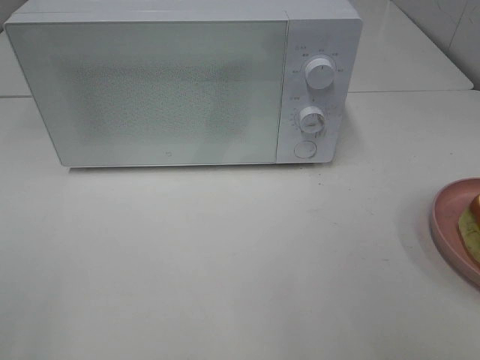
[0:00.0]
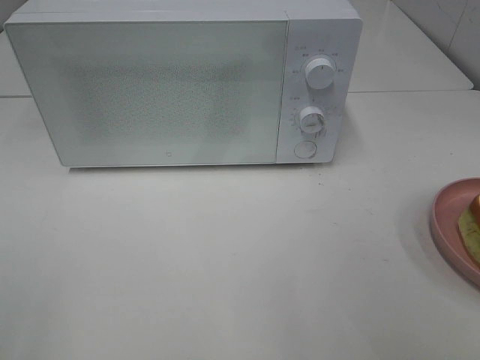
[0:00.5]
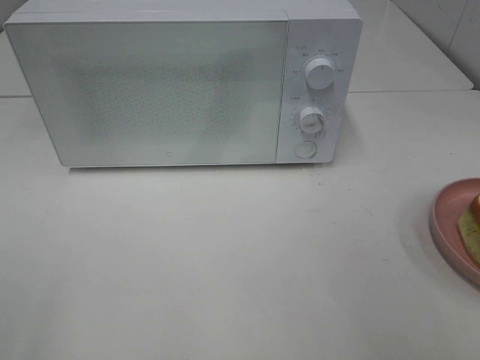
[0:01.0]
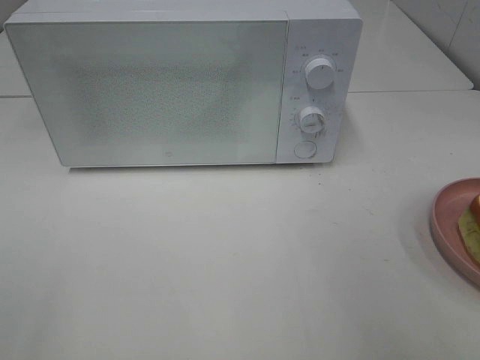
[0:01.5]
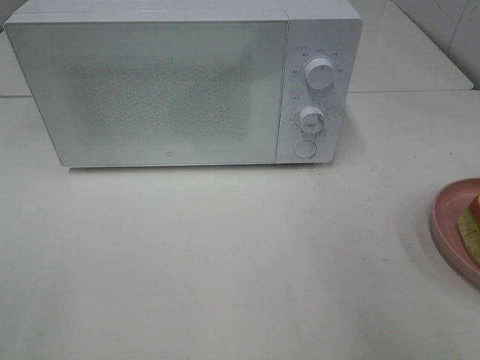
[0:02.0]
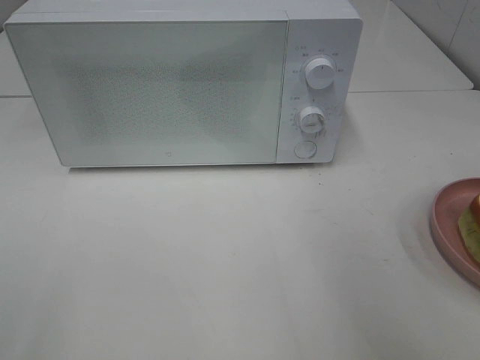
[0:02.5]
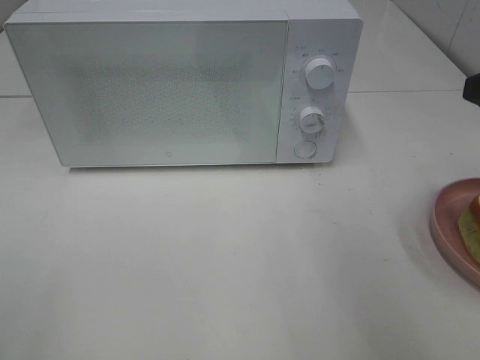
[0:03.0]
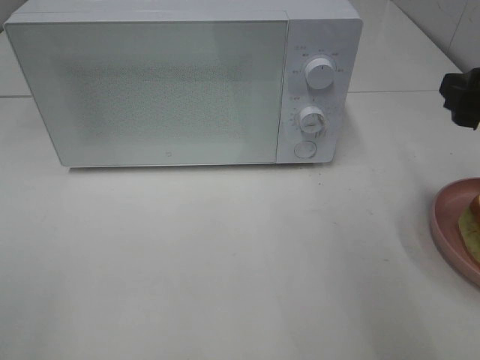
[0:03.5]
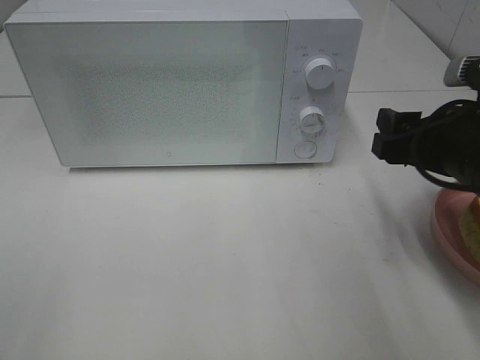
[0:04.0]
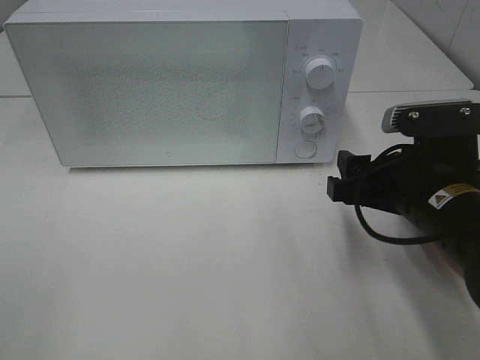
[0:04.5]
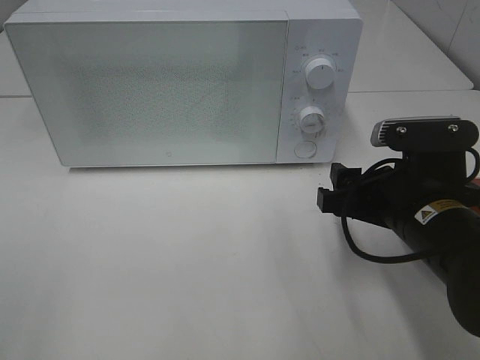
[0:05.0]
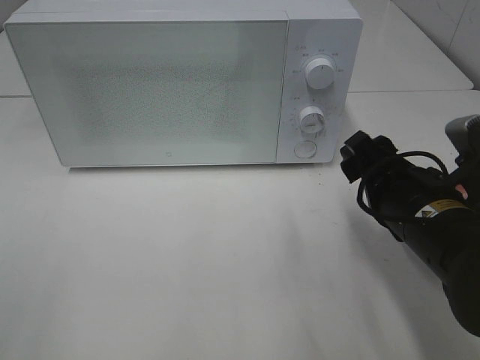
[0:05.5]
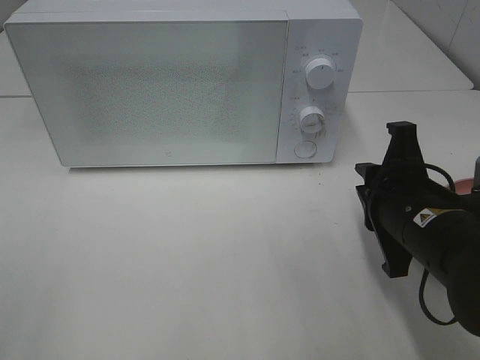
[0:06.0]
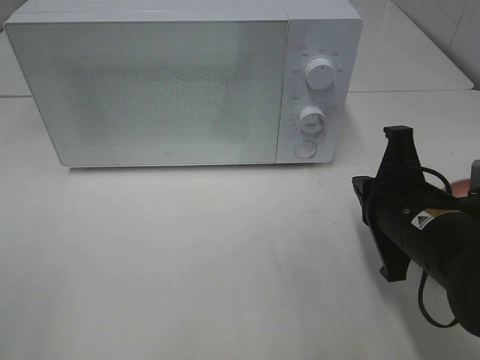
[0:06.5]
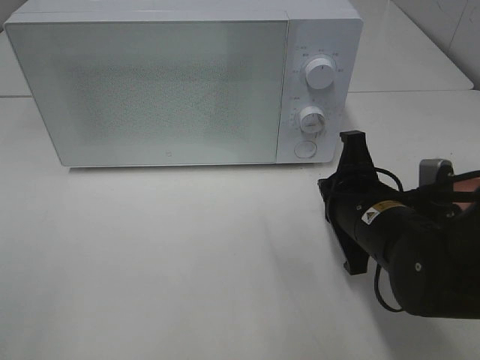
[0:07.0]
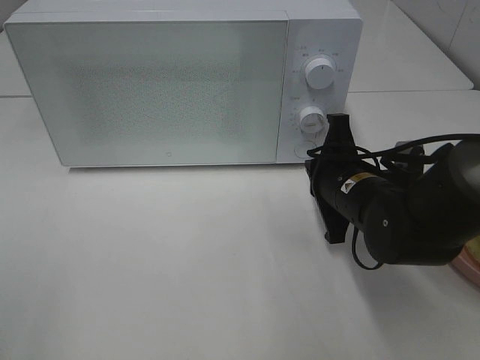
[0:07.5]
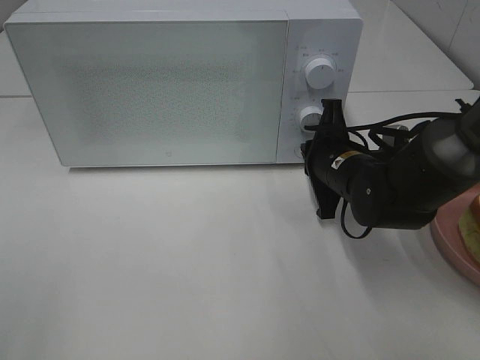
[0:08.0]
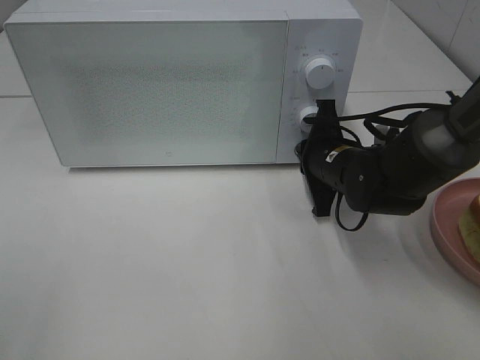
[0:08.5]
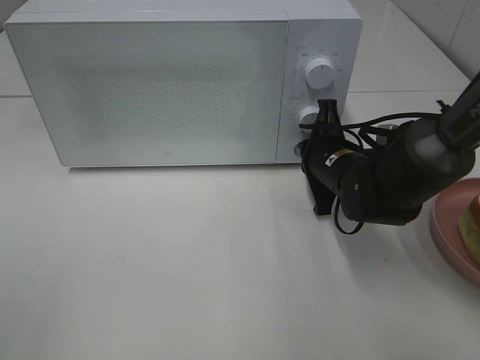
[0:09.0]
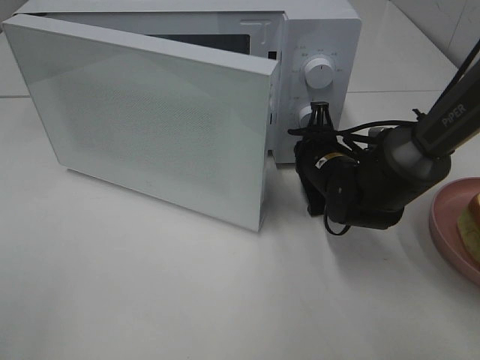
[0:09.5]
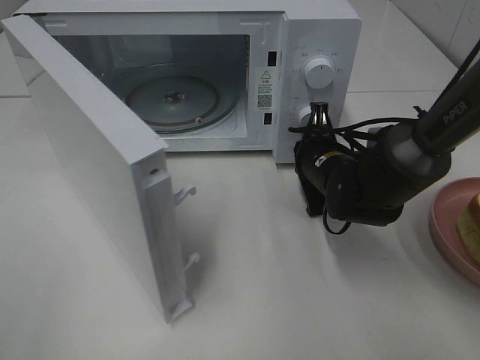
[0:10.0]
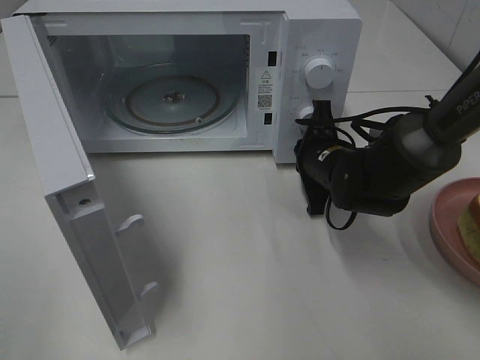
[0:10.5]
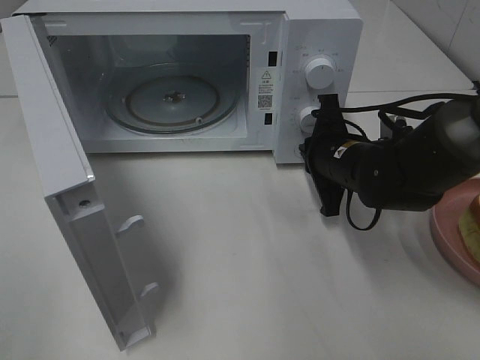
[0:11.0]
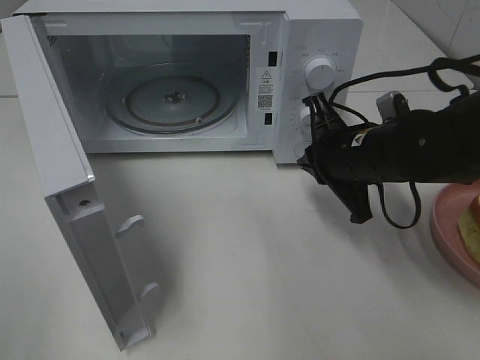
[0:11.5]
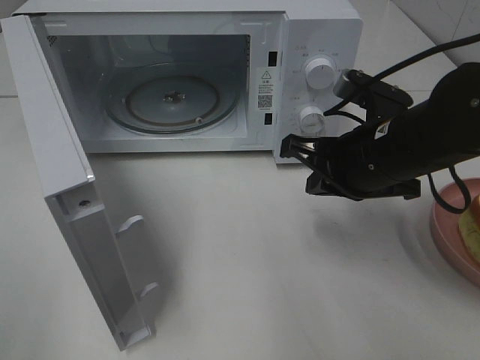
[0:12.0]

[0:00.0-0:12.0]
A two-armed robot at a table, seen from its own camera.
Task of the whole recording: Heat Sandwich.
Step, 0.0 to 11.0 s: Right hand: press the switch.
2.0 to 4.0 s: The right gripper travels downward, forward and to the left by about 15 cm.
4.0 to 6.0 s: The right gripper goes about 5 cm downward, and closes up.
6.0 to 8.0 s: The right gripper travels forward by roughly 10 cm.
10.0 to 12.0 s: The right gripper moves upward and backward, about 15 cm.

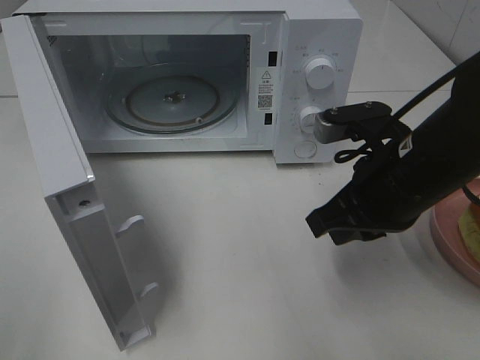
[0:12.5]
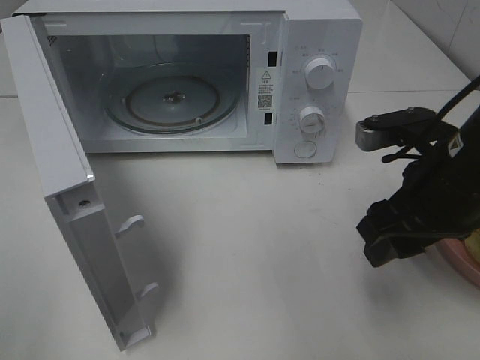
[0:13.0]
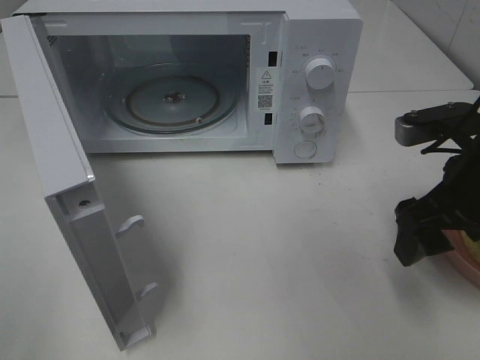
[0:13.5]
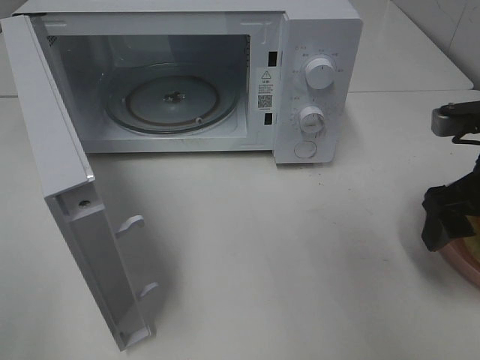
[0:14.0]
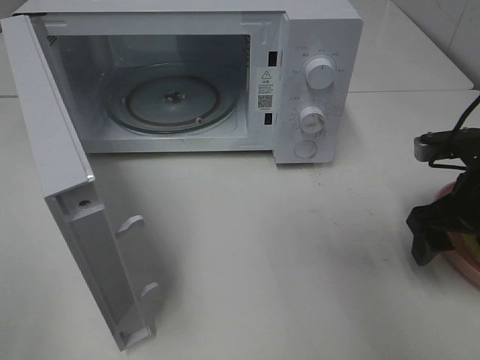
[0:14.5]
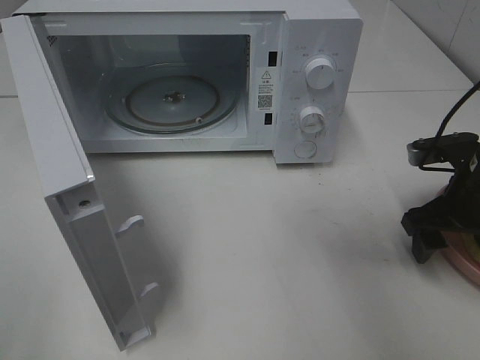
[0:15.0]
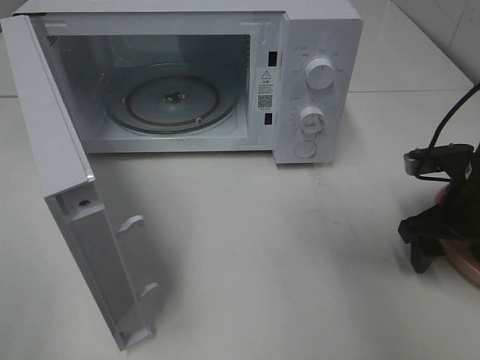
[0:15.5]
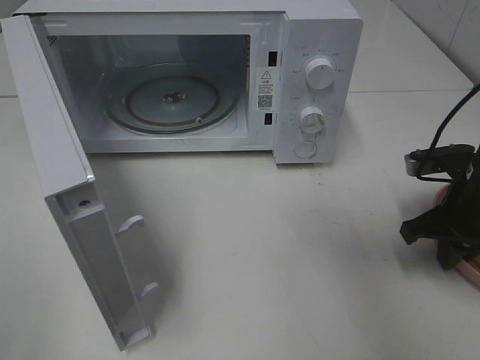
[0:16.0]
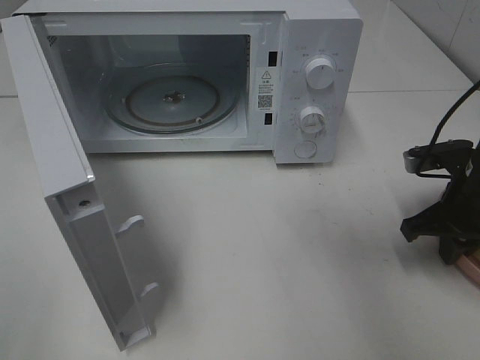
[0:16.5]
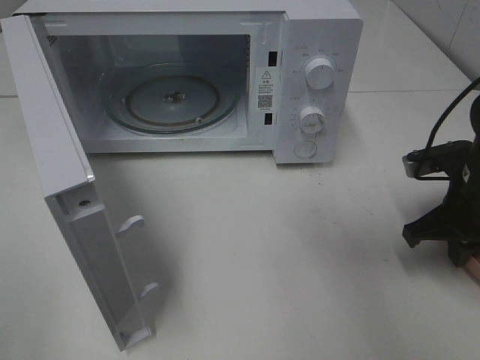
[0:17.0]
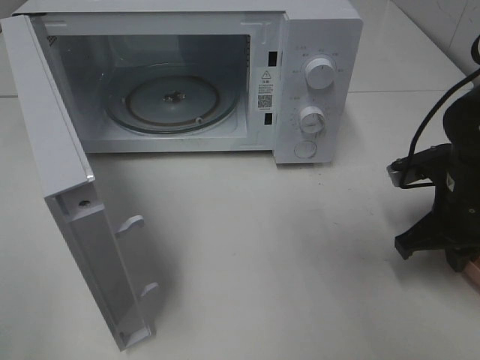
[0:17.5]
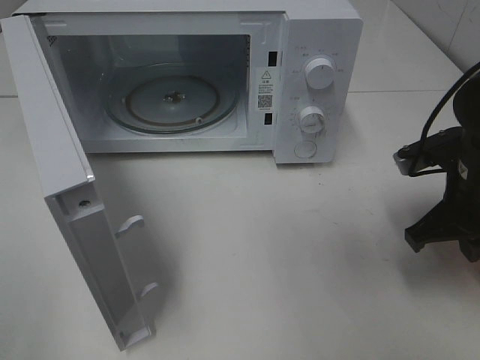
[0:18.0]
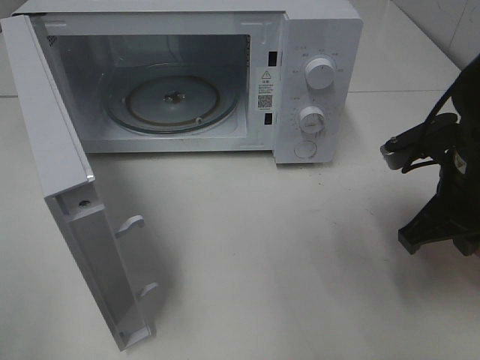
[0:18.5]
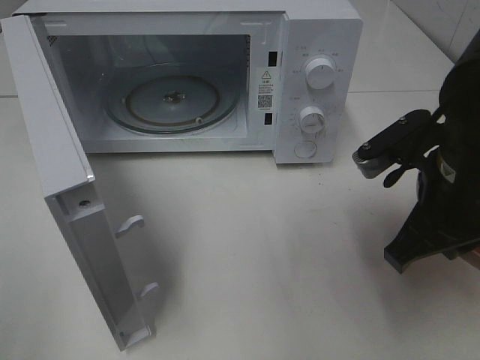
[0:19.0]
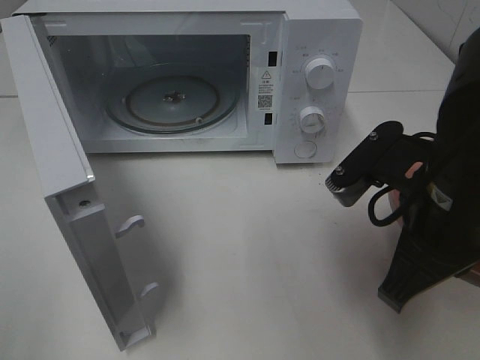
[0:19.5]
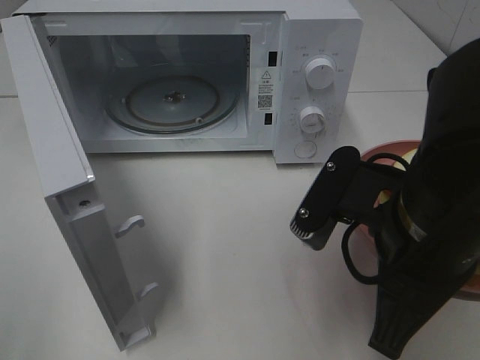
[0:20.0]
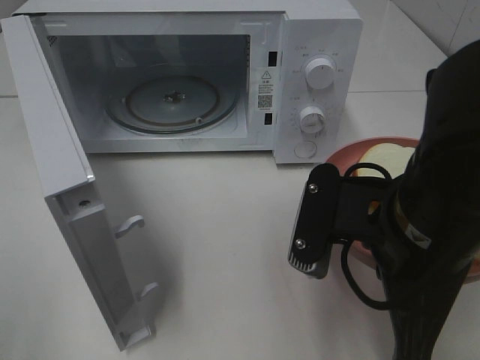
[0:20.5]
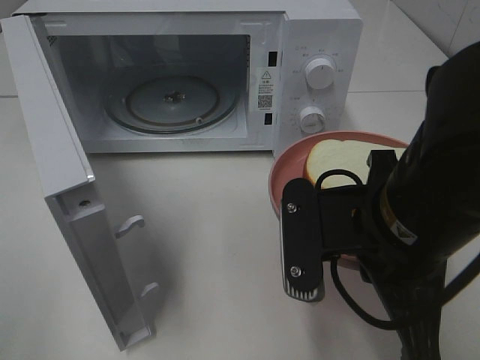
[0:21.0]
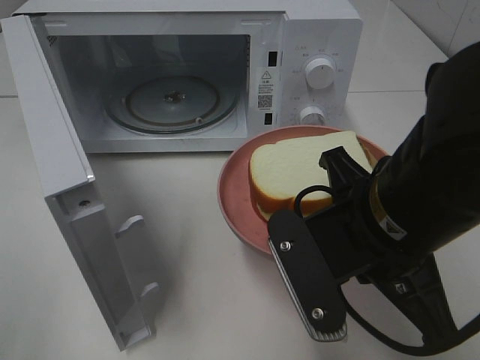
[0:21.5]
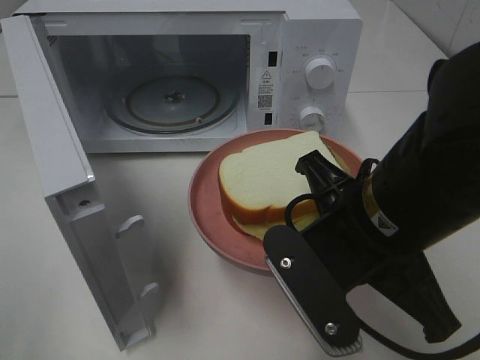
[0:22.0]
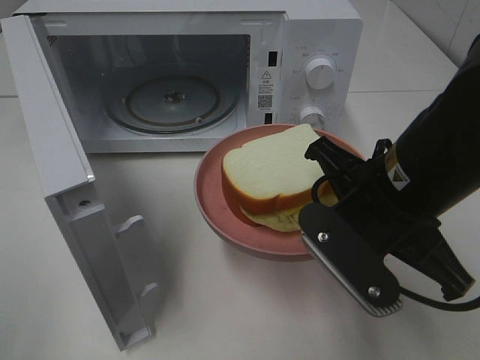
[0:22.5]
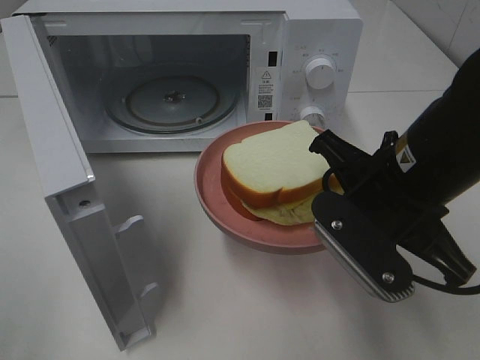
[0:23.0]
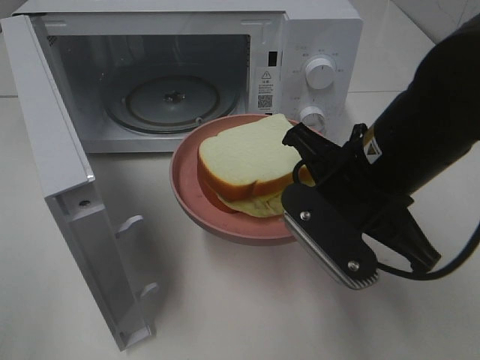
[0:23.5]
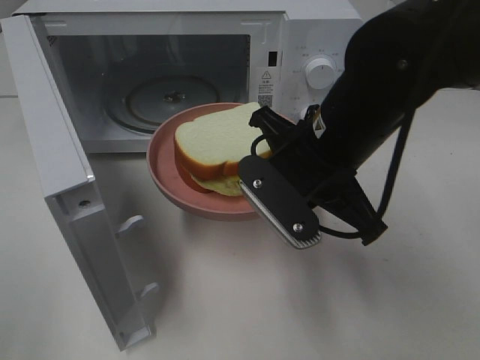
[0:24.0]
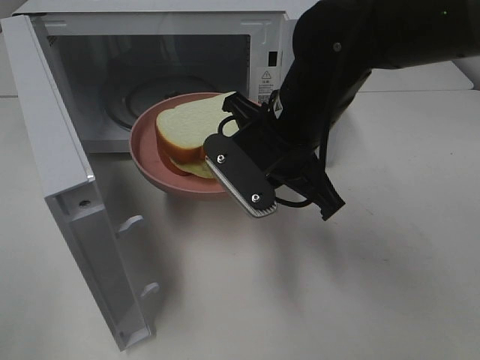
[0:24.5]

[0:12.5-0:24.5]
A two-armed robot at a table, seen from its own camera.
Task of the whole recording: Heat Sandwich.
Step, 12.5 to 16.0 s: Right hand: grab the plate with the sandwich.
12.5 to 14.5 s: The right gripper heads to the right, covering about 10 cm, and opens its fingers.
14.5 to 16.5 s: The right gripper closes its fingers.
16.5 to 18.5 s: The right gripper heads upward and to the left, covering approximately 10 cm.
18.5 to 20.5 s: The right gripper is displaced to the left and backward by approximately 15 cm.
22.5 to 24.5 s: The right gripper shifts about 10 cm forward and to the left.

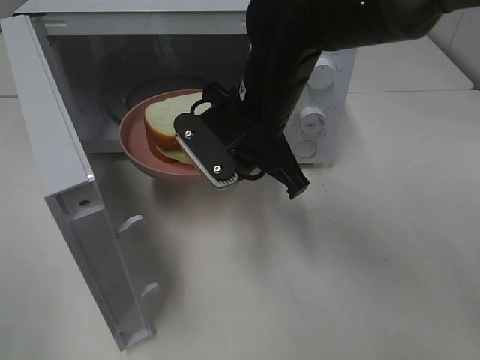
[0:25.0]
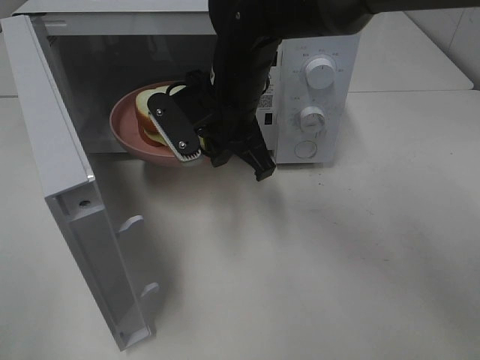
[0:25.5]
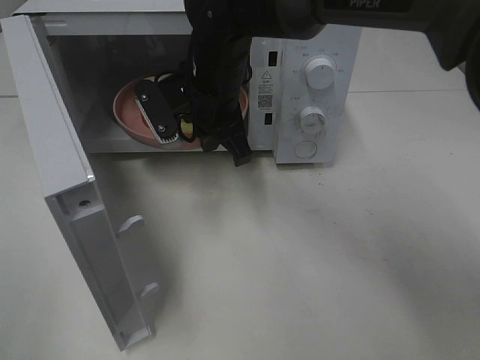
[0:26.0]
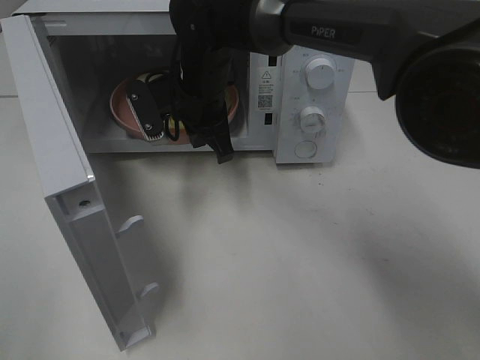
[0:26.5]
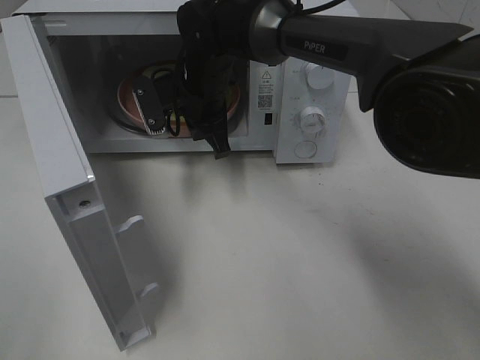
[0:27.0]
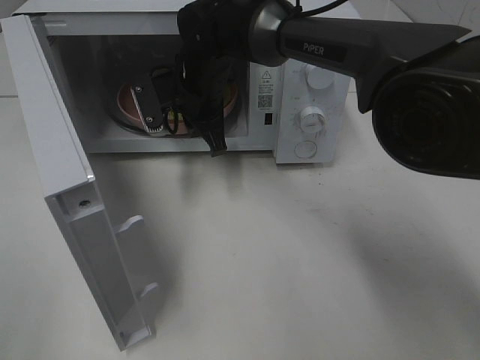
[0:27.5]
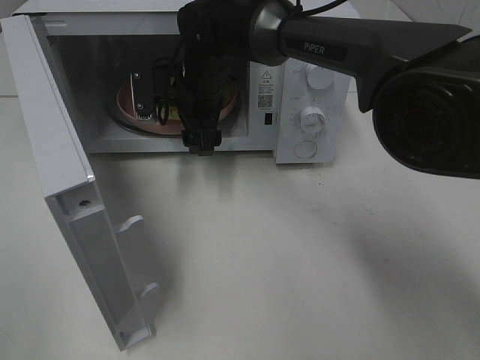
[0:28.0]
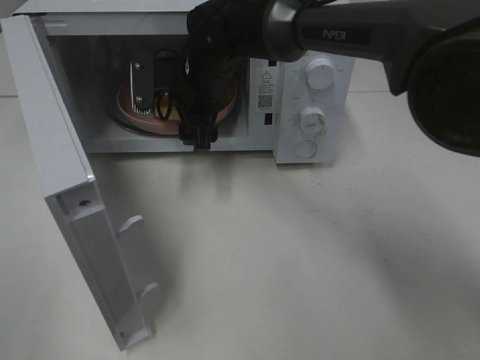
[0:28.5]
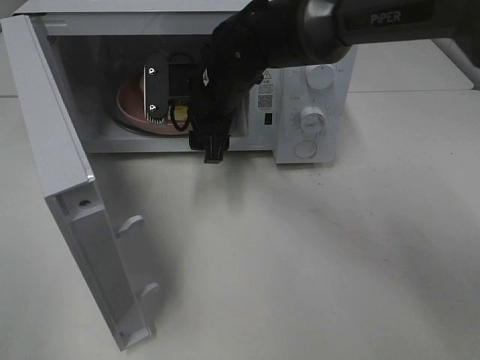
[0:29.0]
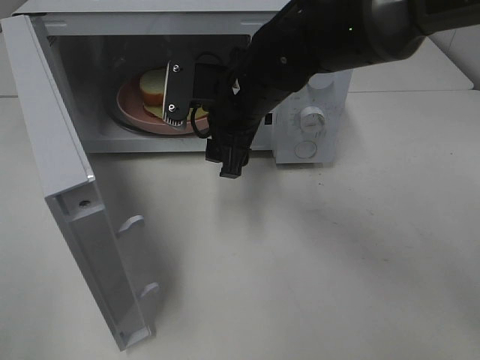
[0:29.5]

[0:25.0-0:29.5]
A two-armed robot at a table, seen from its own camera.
Task of the whole recording: Heat Sandwich.
Step, 25.0 to 29.5 s: Right hand: place the plate in the microwave.
25.0 to 27.0 s: The right gripper is displaced forward and to the left by roughly 15 cm.
27.0 to 29.5 s: The right gripper travels backward and to the right by about 10 cm, and opens up.
